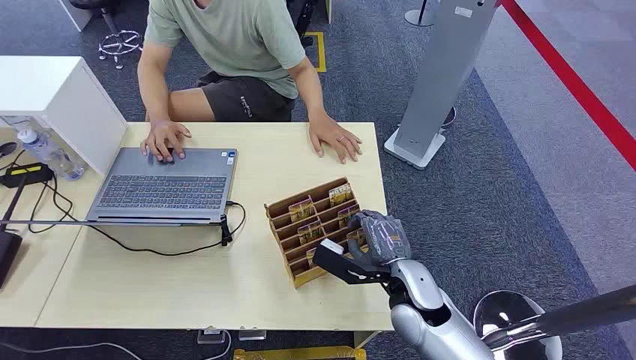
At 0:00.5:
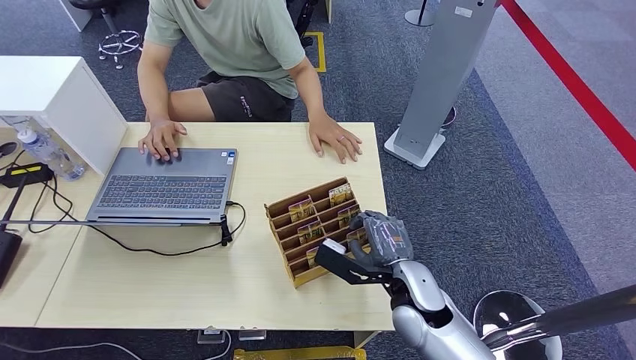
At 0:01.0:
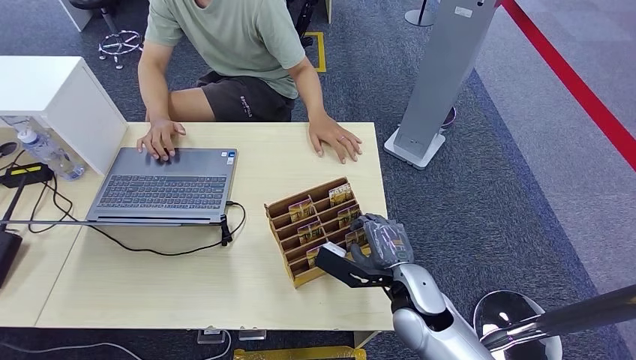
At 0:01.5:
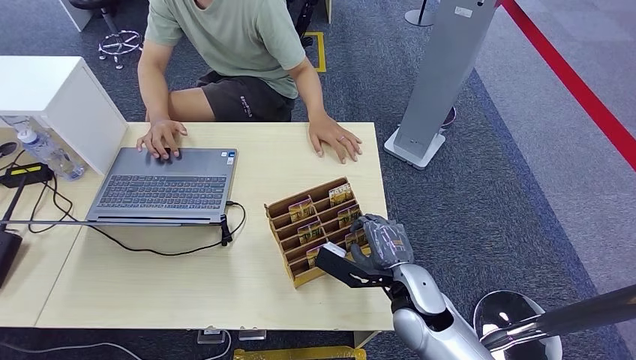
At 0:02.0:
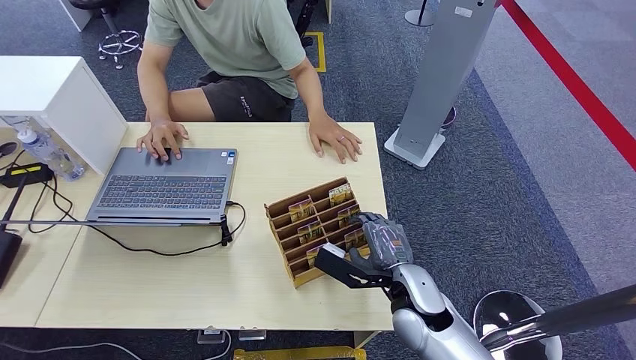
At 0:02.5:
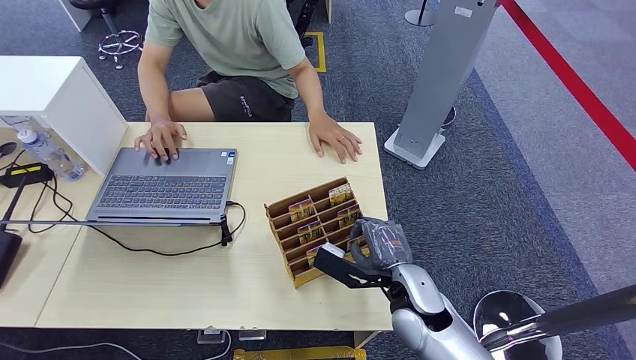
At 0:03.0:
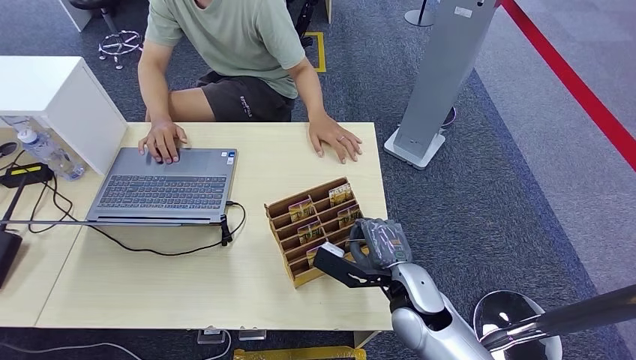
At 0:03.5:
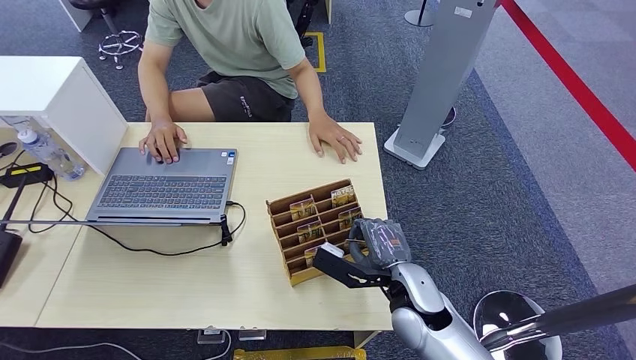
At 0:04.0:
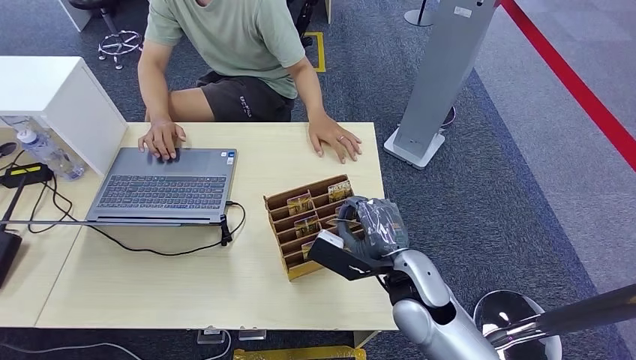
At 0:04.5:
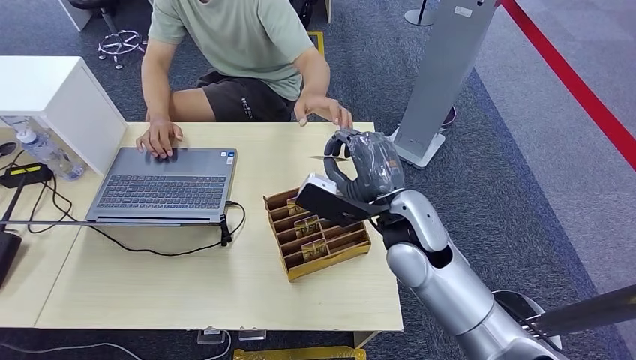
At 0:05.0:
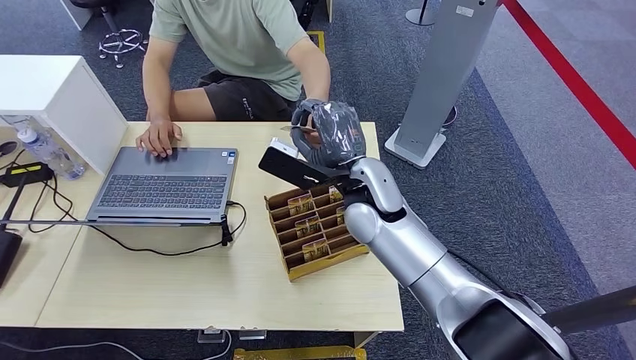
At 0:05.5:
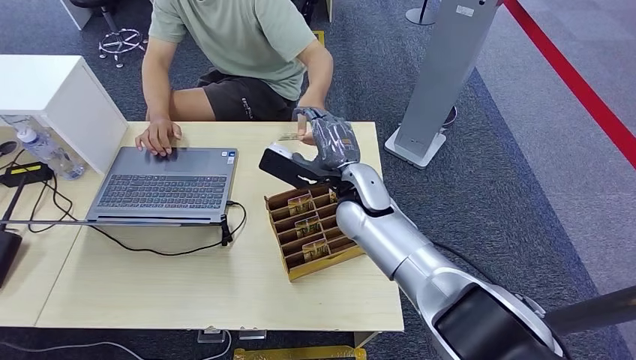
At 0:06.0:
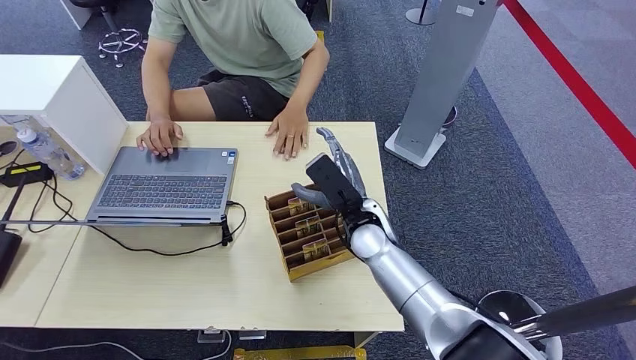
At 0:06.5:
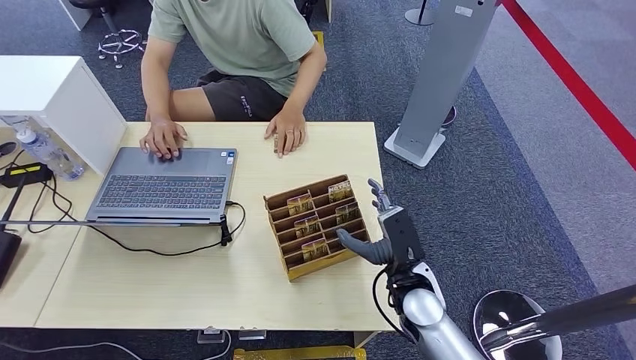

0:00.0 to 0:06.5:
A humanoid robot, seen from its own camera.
Step, 0:00.0 to 0:04.0: Pick up the key card from the card box.
Step, 0:05.0 to 0:06.0: Hand the key card to the target.
0:02.0 to 0:04.5: The right hand heads upward and forward, covering roughly 15 cm.
0:04.5 to 0:06.5: The right hand goes approximately 15 cm downward.
